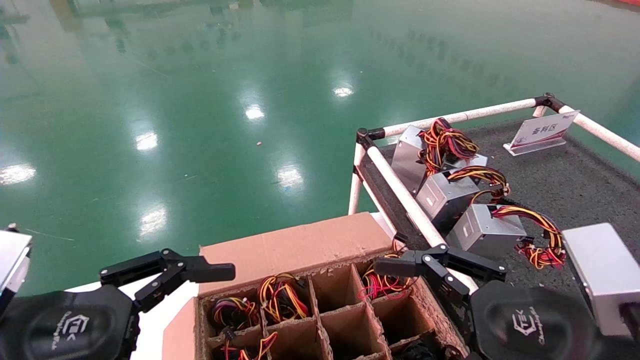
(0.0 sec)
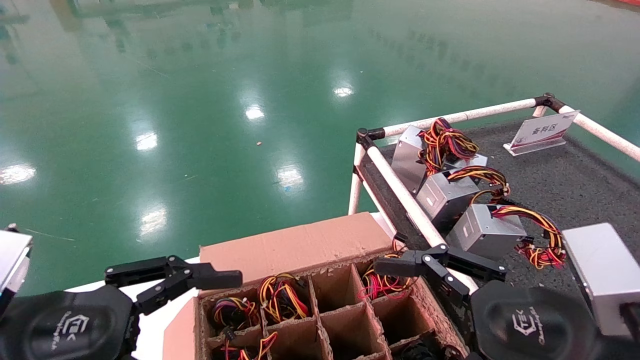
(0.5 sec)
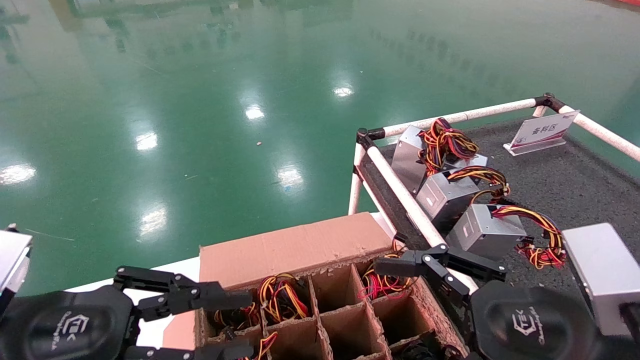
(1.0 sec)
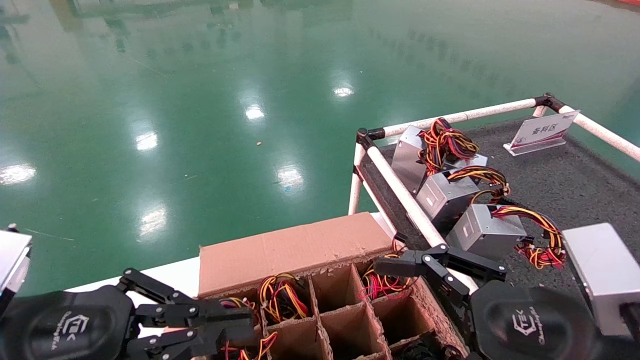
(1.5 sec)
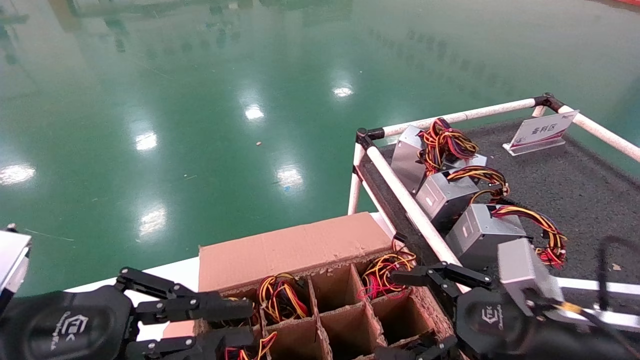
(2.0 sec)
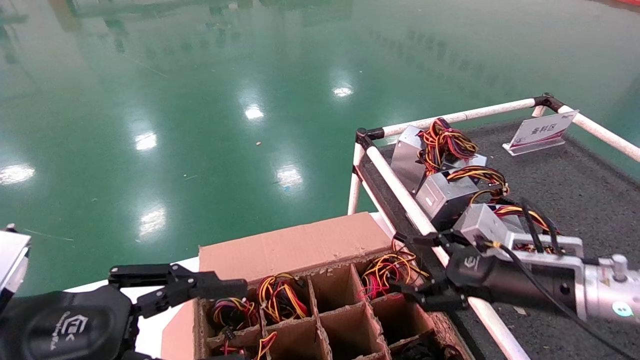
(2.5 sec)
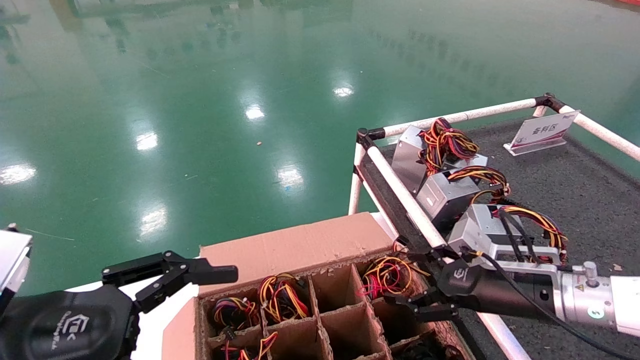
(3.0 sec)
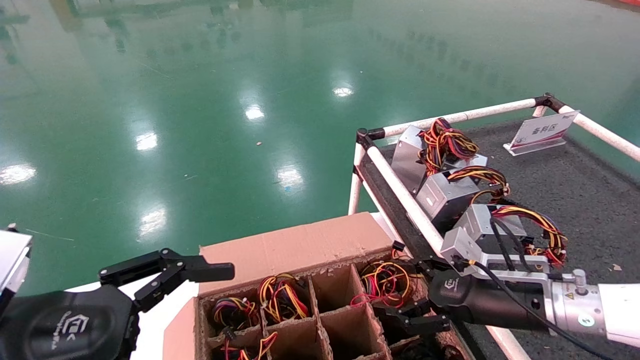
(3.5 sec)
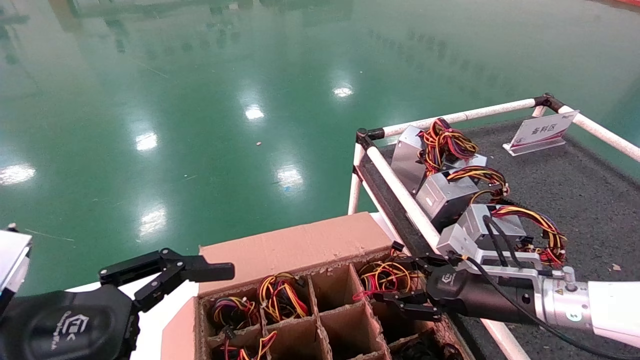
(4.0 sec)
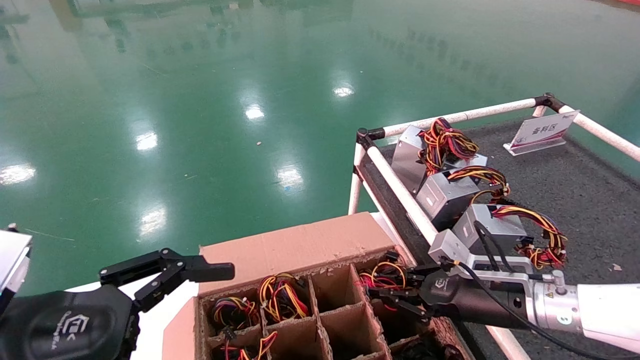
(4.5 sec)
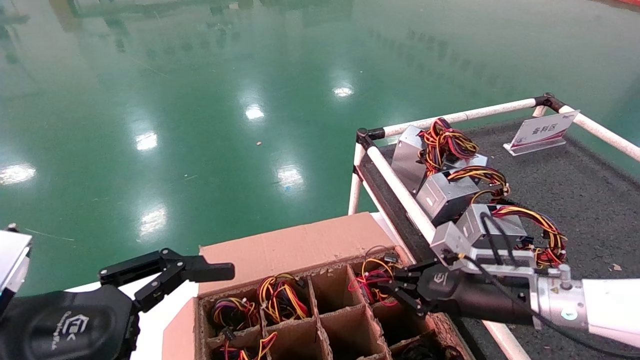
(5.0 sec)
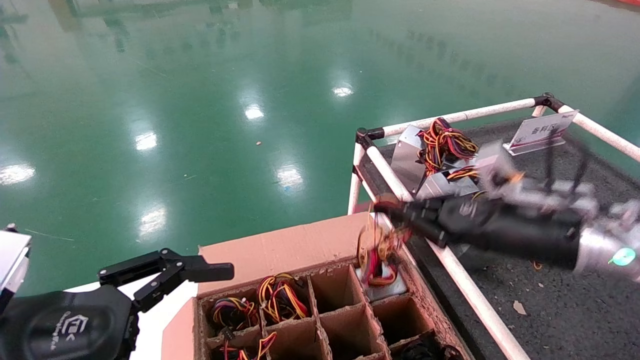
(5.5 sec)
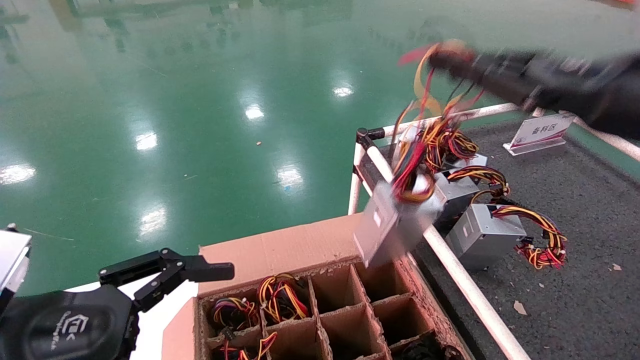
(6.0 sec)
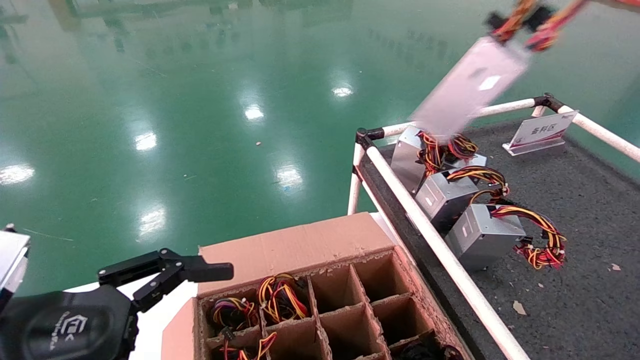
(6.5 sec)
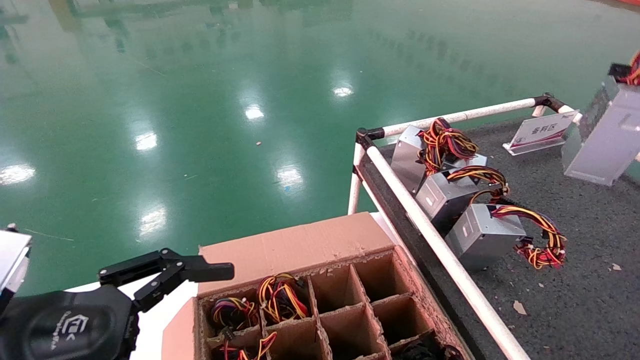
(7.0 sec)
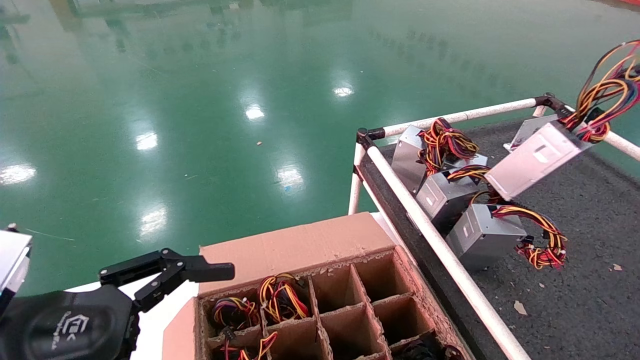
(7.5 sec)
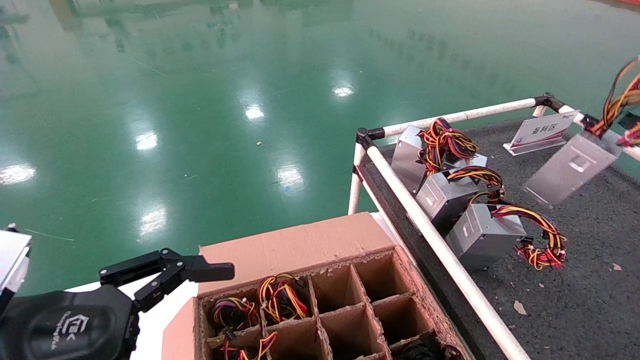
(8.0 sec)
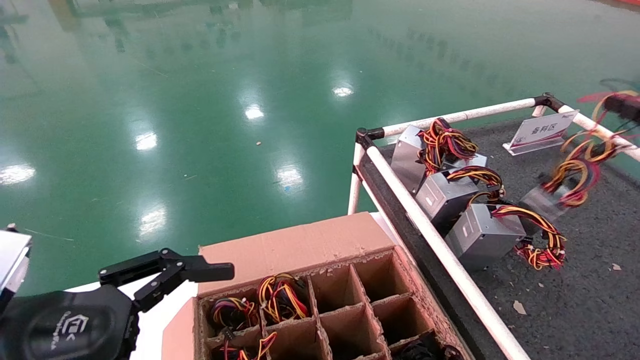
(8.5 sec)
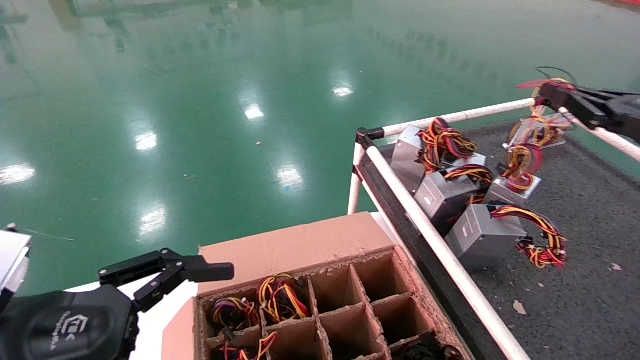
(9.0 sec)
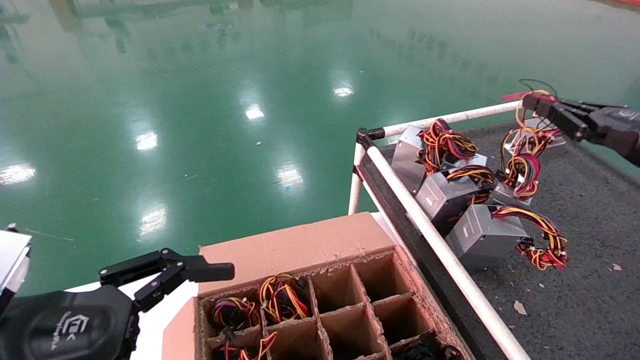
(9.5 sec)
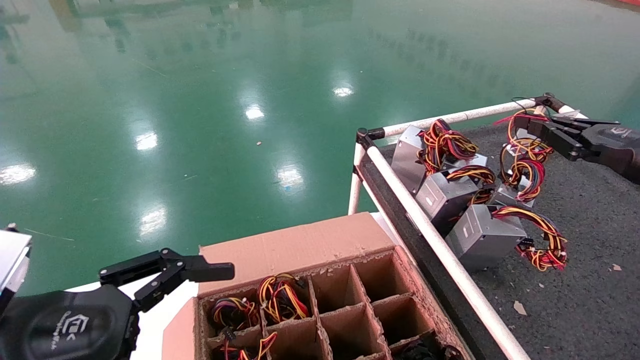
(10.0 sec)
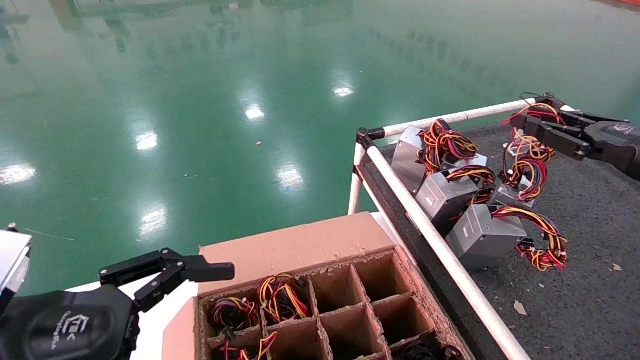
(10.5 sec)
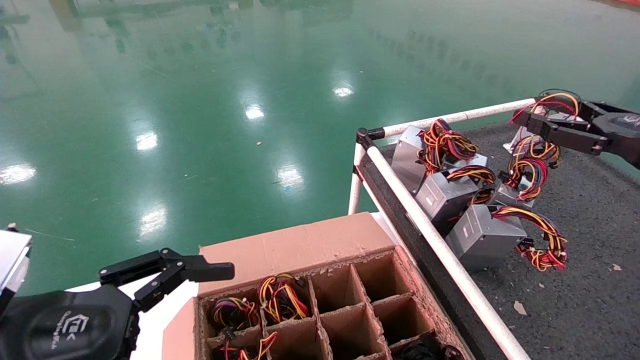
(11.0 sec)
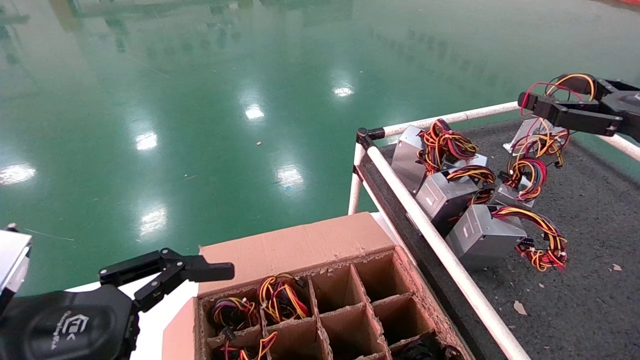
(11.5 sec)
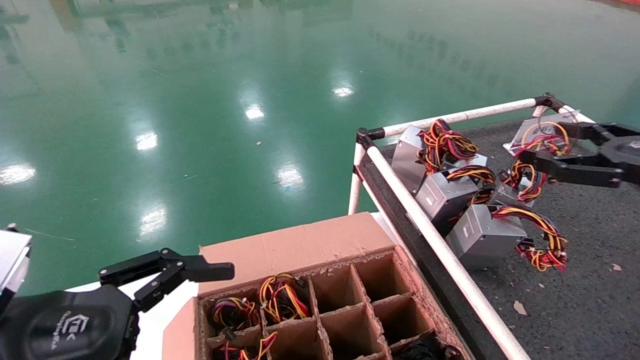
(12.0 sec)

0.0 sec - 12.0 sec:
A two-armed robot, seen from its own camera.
Step, 2.0 sec - 4.5 sec: Grab and lift the power supply from the large box.
Step, 5.0 sec - 10.5 sec: Place the power supply on the operating table.
0.0 sec - 2.0 sec: The left gripper closes up. Meanwhile the right gripper shifts approximately 5 cm forward.
2.0 sec - 4.0 sec: The right gripper travels forward by some 10 cm, while the left gripper opens.
4.0 sec - 6.0 sec: The right gripper is displaced upward and backward by about 30 cm, and closes up.
6.0 sec - 8.0 sec: The right gripper is displaced to the right by roughly 20 cm.
8.0 sec - 10.0 sec: The right gripper goes about 15 cm to the left, forward and downward.
10.0 sec - 12.0 sec: The right gripper opens.

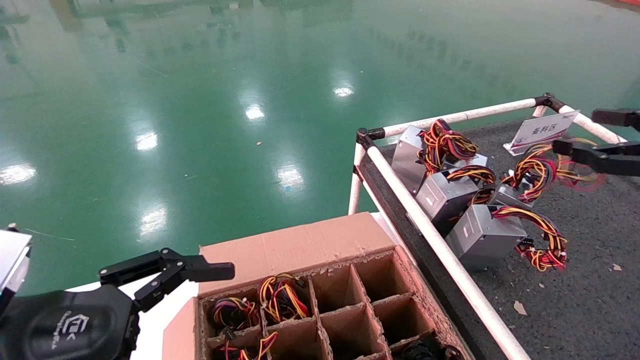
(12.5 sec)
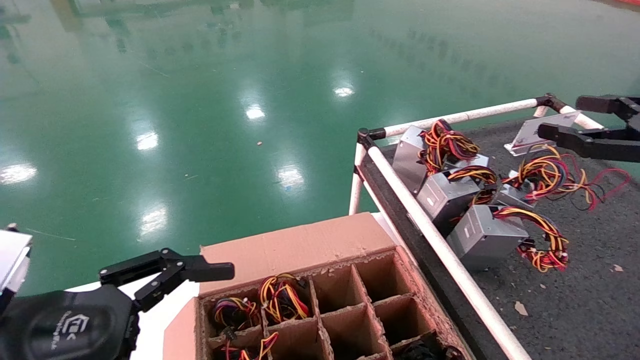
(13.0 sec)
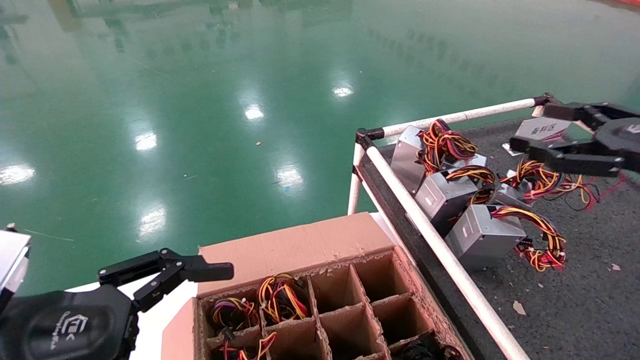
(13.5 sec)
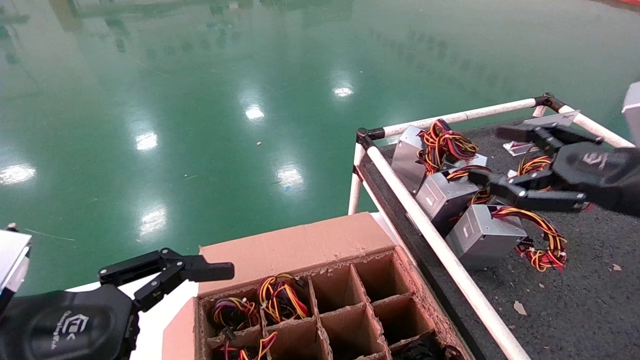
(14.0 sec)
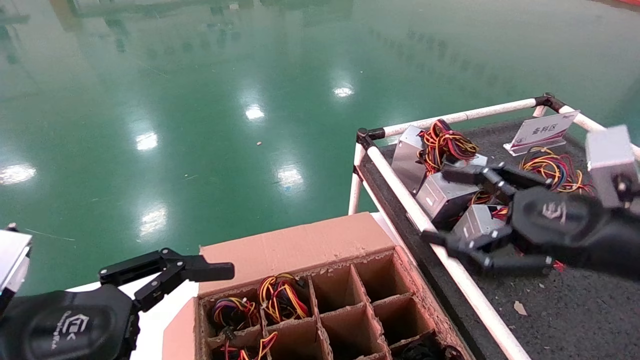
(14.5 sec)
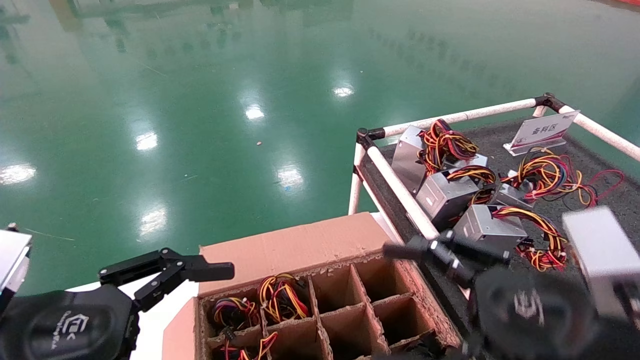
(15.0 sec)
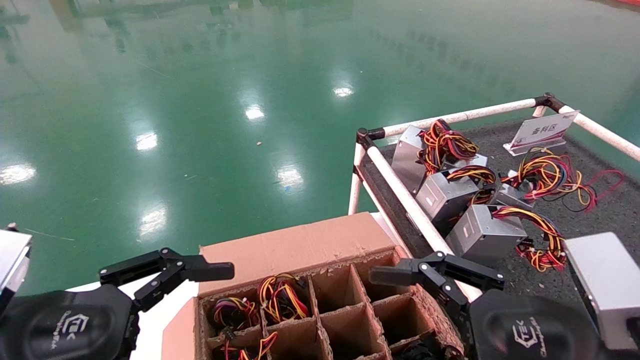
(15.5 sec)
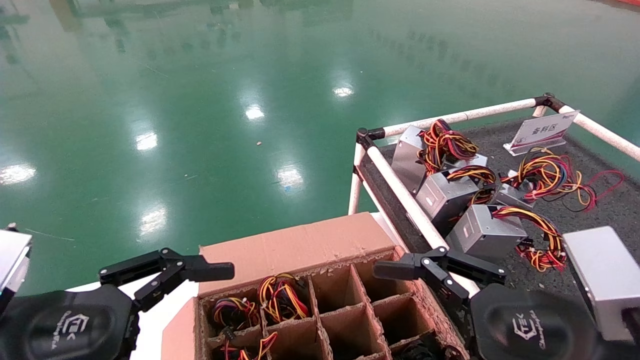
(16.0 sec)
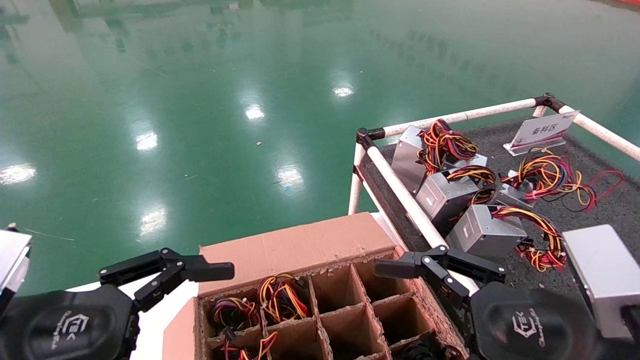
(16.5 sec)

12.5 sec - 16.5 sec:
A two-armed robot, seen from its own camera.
12.5 sec - 14.5 sec: The right gripper goes approximately 15 cm to the left and downward.
14.5 sec - 16.5 sec: The right gripper goes some 10 cm to the left and backward.

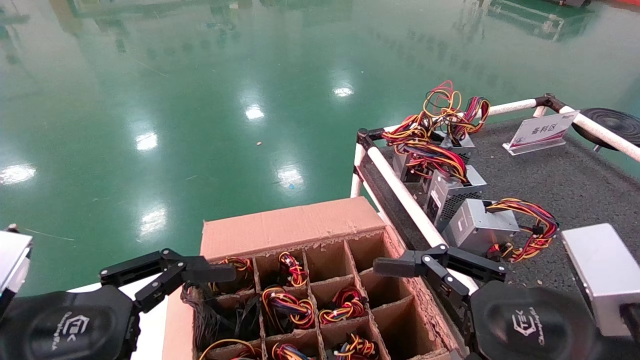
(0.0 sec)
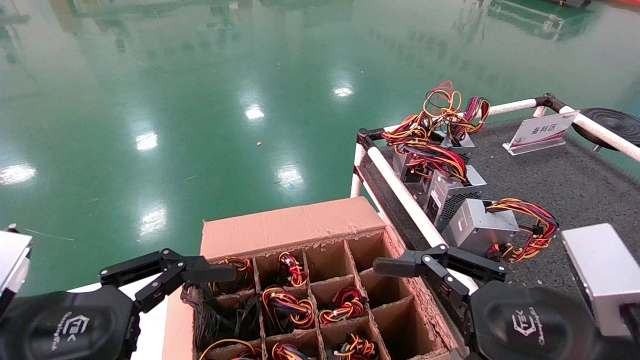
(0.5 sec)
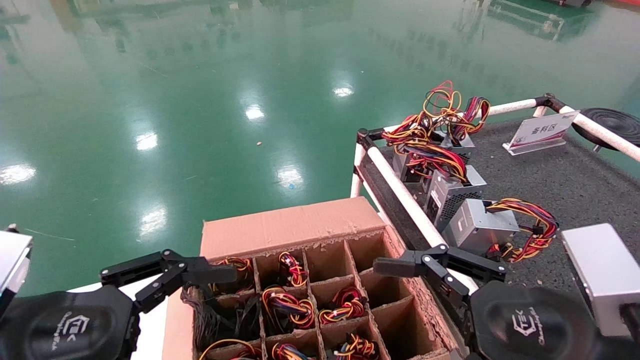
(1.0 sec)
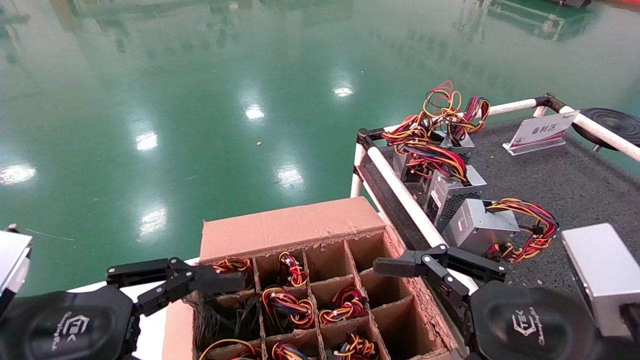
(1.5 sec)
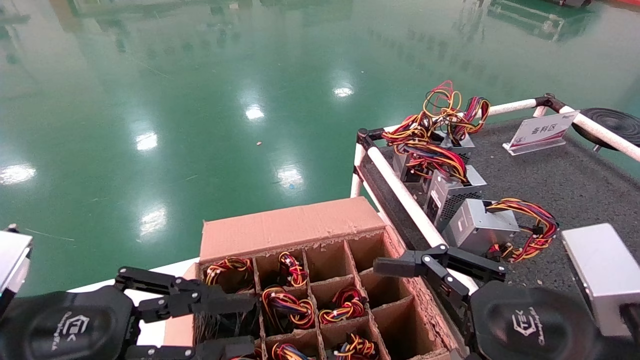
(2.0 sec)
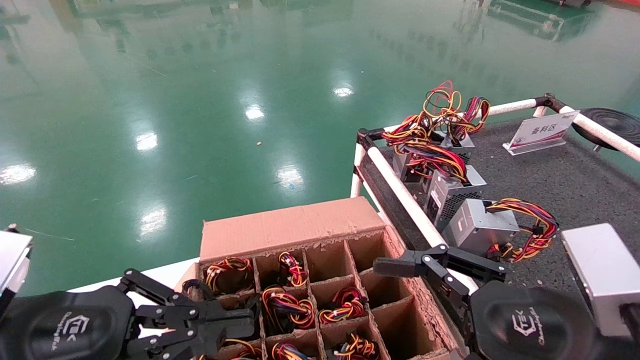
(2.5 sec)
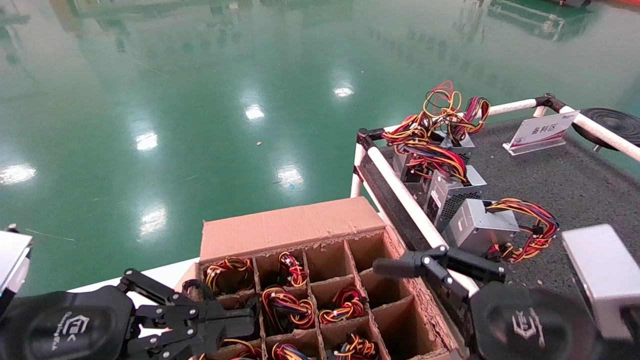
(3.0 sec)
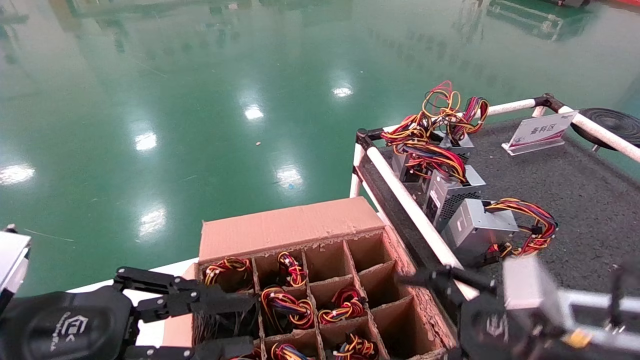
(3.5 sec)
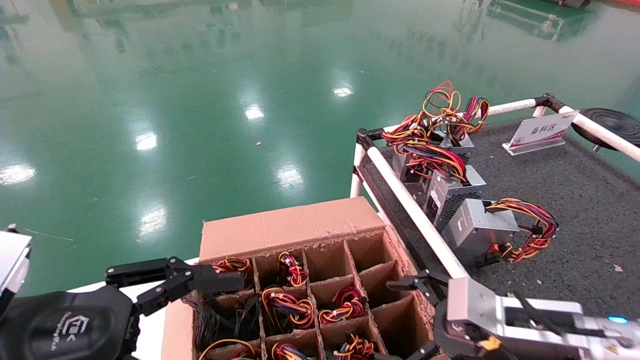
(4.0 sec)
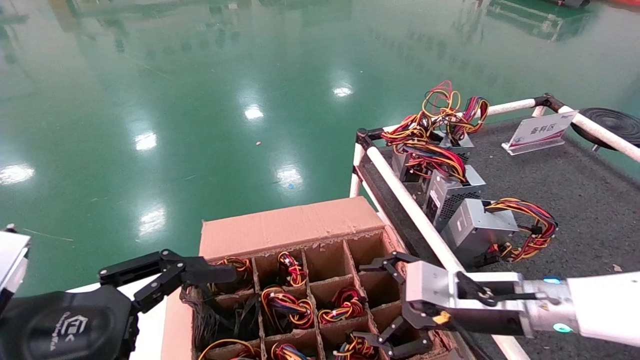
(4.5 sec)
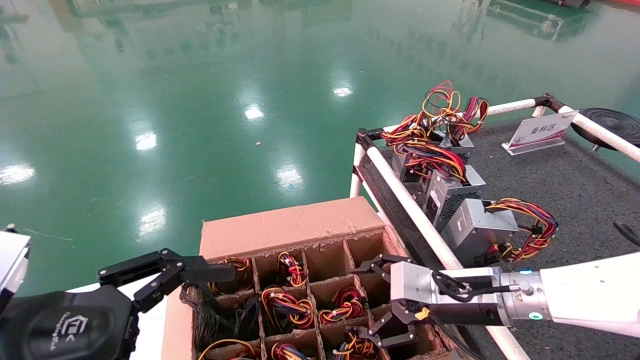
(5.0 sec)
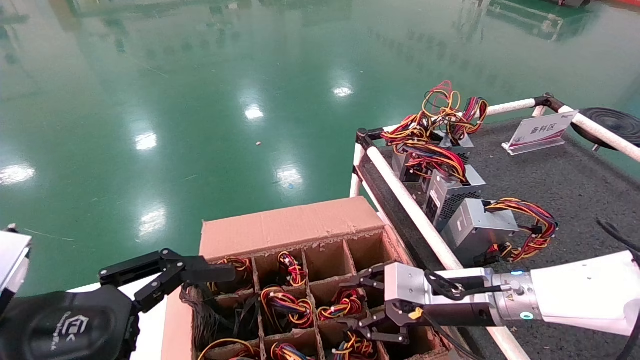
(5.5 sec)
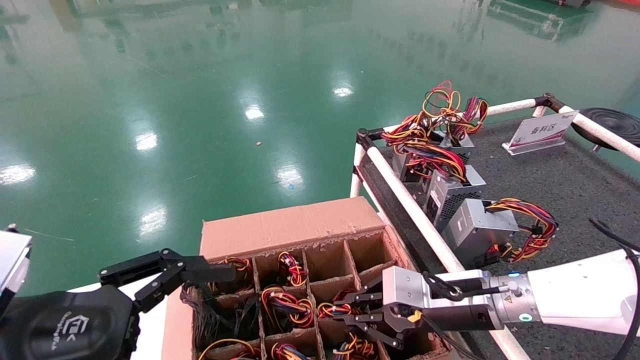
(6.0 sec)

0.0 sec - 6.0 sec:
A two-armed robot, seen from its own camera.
0.0 sec - 2.0 sec: The left gripper closes up.
2.0 sec - 4.0 sec: The right gripper goes about 15 cm forward and downward, while the left gripper closes, then opens again.
4.0 sec - 6.0 sec: The right gripper heads forward, covering approximately 10 cm, and closes. Meanwhile the left gripper opens.
